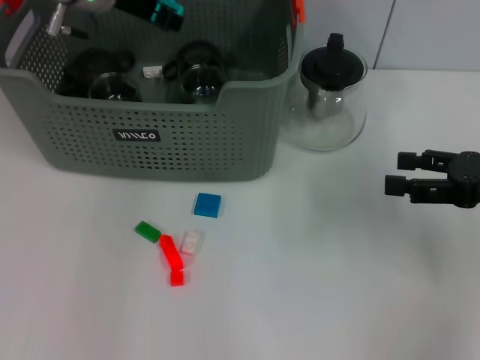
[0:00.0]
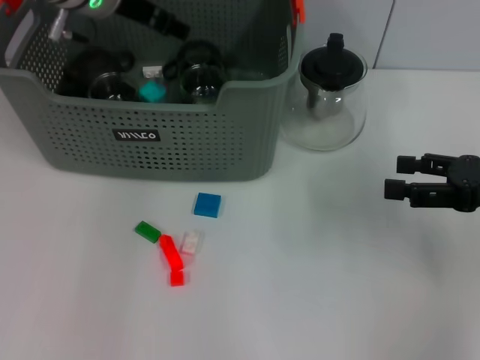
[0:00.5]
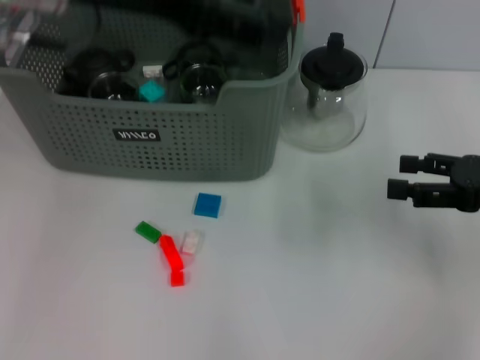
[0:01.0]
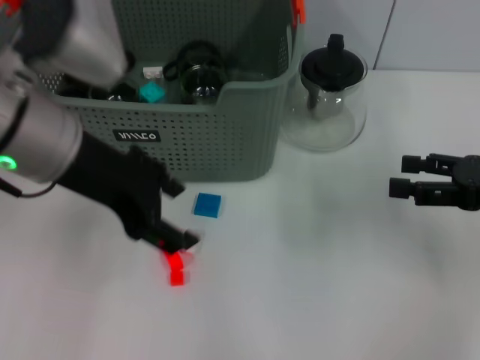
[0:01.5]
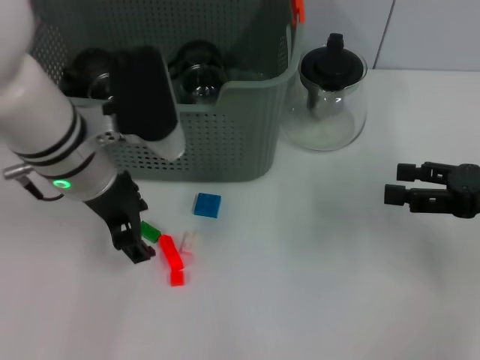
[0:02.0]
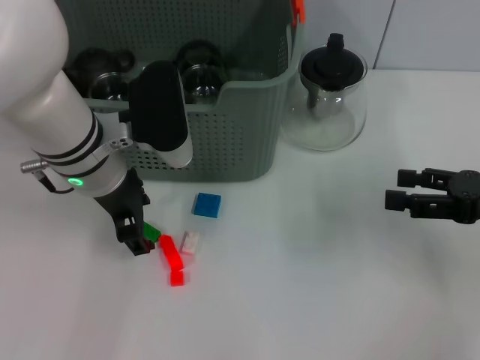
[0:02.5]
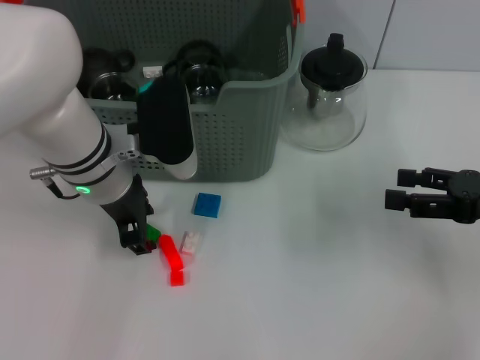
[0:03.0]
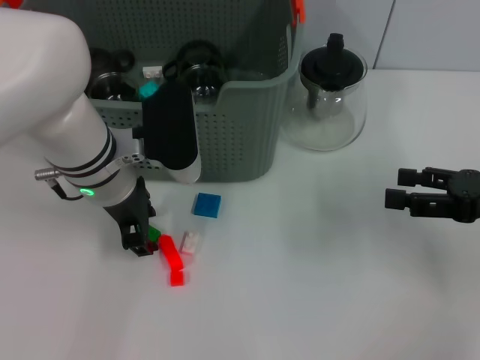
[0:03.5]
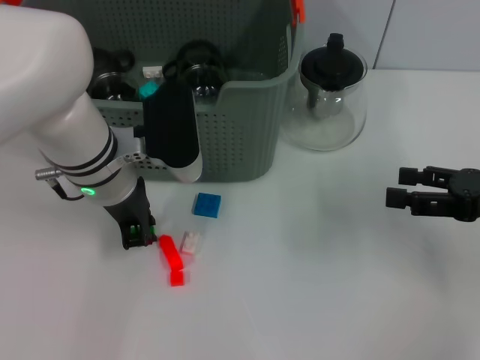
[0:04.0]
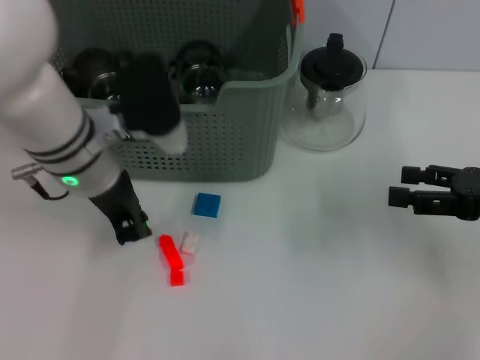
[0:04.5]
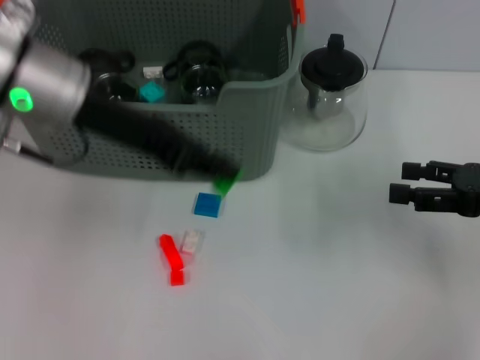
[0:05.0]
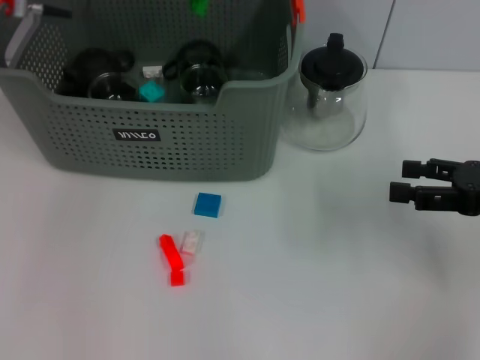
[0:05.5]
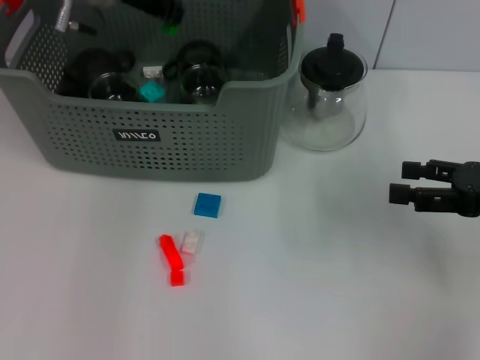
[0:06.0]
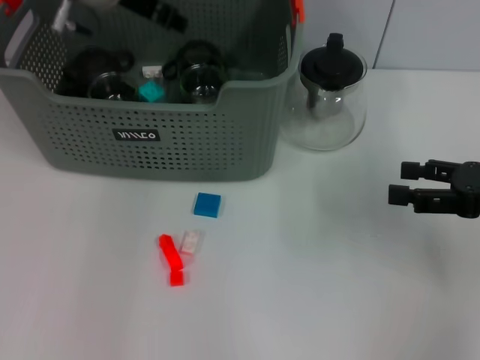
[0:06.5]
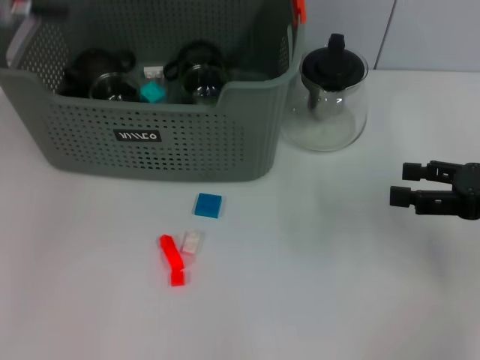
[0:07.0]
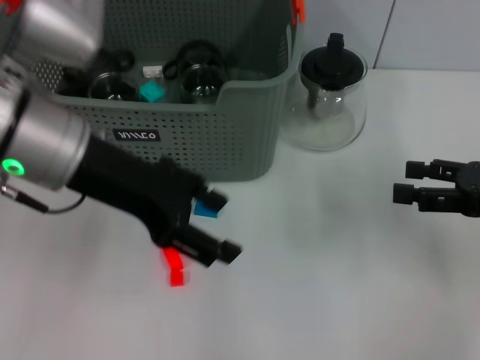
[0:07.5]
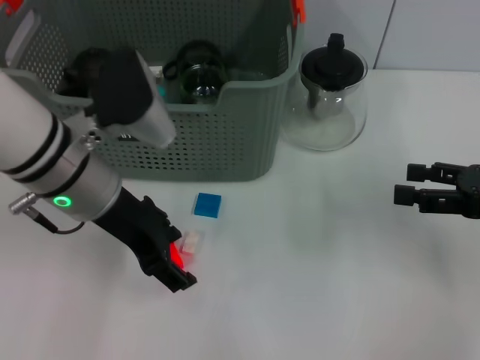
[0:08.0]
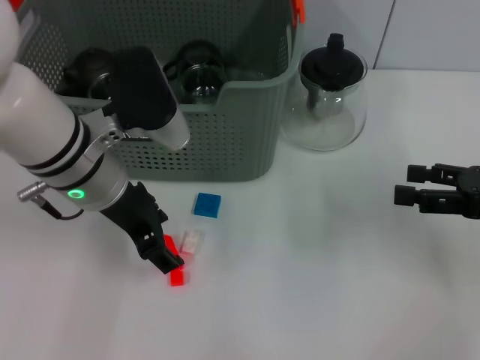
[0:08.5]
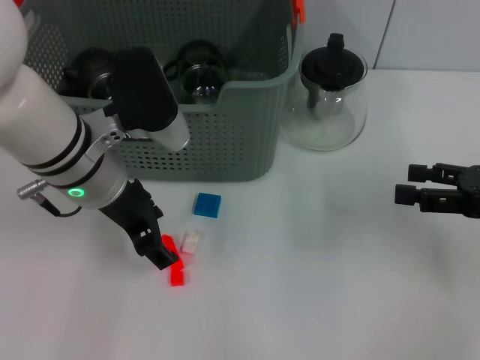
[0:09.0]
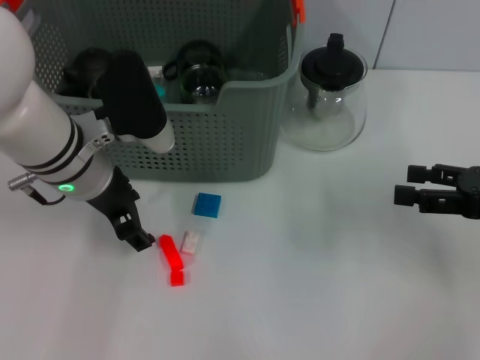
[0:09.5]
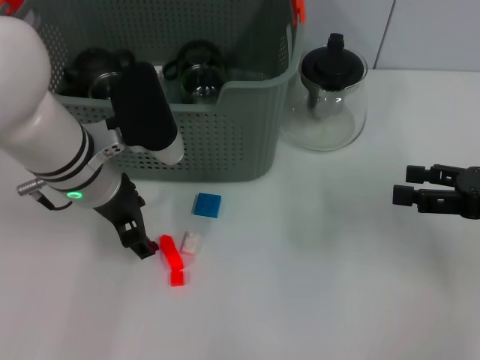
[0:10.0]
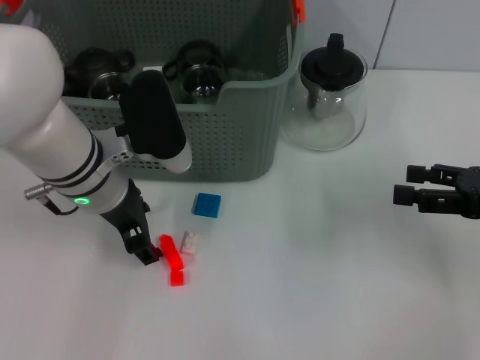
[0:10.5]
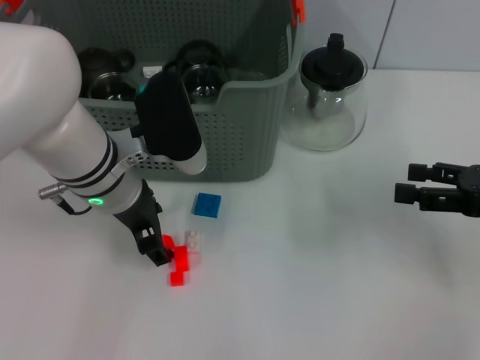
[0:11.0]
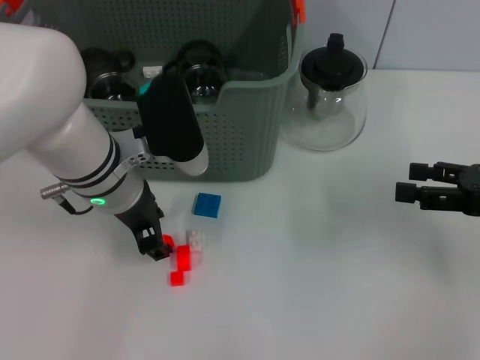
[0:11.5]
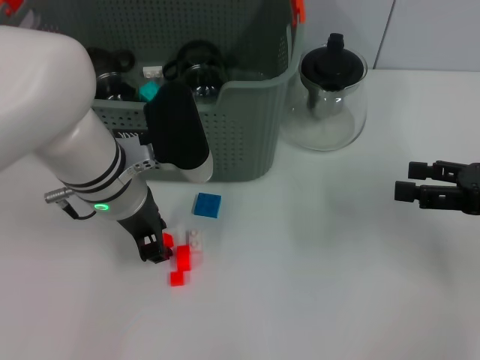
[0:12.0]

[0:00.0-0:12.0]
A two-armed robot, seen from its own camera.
Task of the whole recording: pick up the teacup on the table and place it into the storage bin, pick up the block on the table and place it into the storage bin.
Step, 0:01.0 to 0:04.0: Grasp the green block with left gripper.
Step, 0:04.5 to 0:06.0: Place the green block in the storage box with left gripper.
0:00.0 to 0:02.0: The left gripper heads backward and downward, covering some 15 cm.
0:02.0 to 0:04.0: The left gripper closes up.
0:04.0 to 0:06.0: The left gripper travels forward and upward by roughly 15 cm.
0:06.0 to 0:08.0: The left gripper is displaced backward and downward by approximately 15 cm, and opens its fingers.
0:08.0 to 0:10.0: The grippers make only small movements.
0:10.0 to 0:12.0: The left gripper closes up.

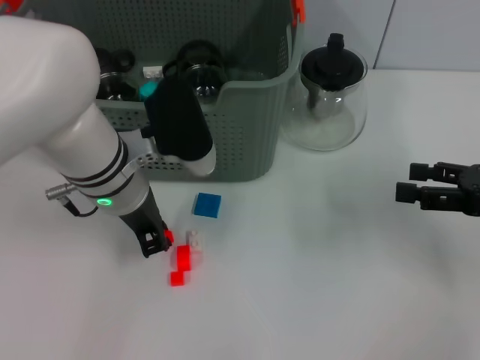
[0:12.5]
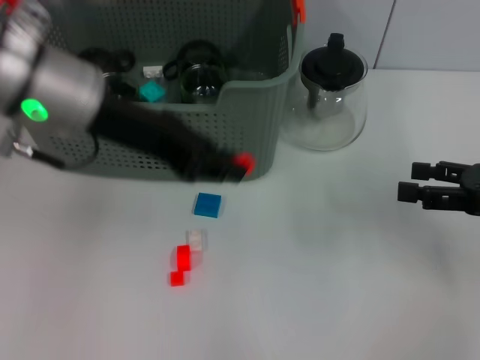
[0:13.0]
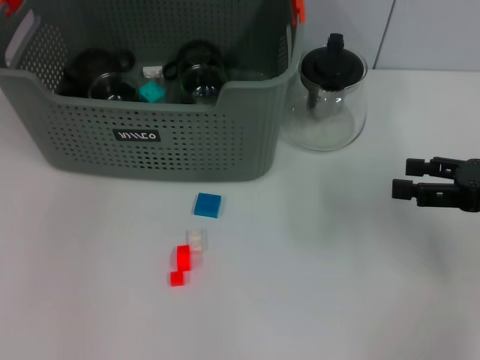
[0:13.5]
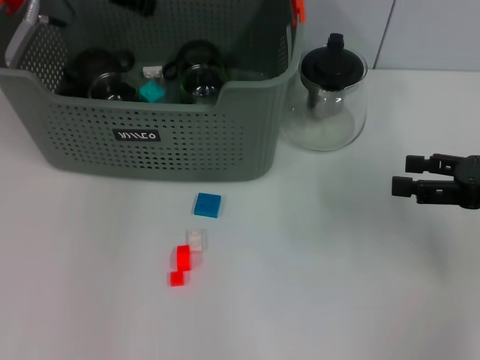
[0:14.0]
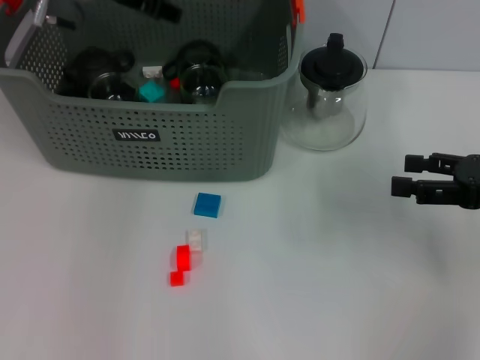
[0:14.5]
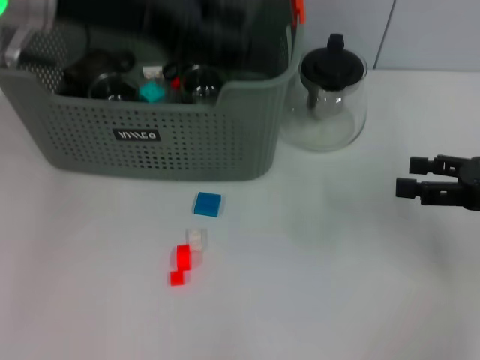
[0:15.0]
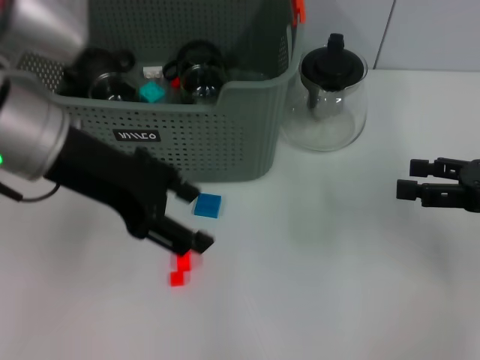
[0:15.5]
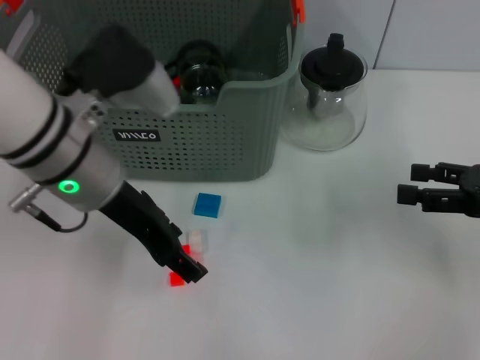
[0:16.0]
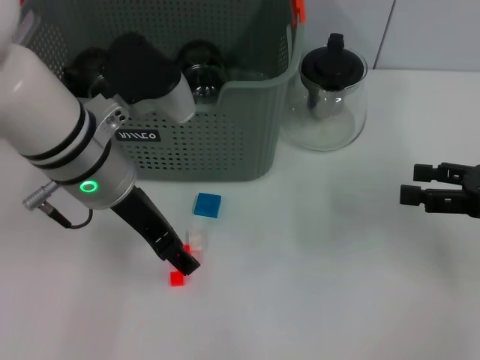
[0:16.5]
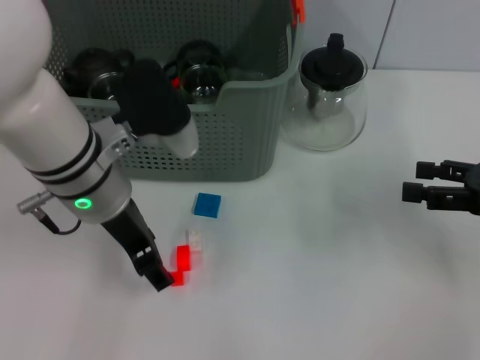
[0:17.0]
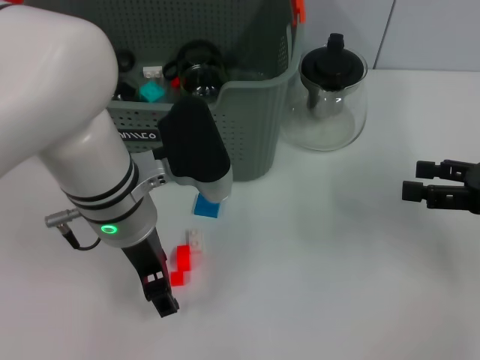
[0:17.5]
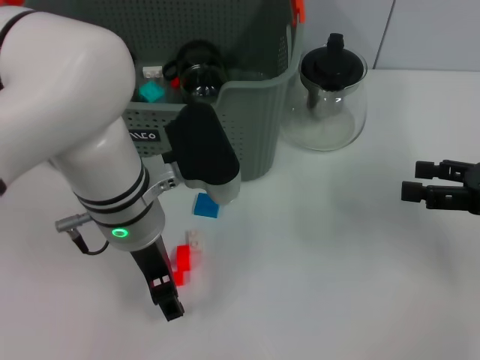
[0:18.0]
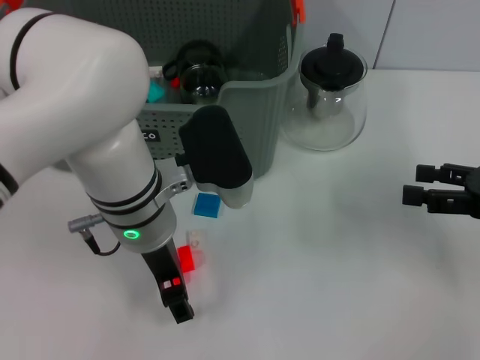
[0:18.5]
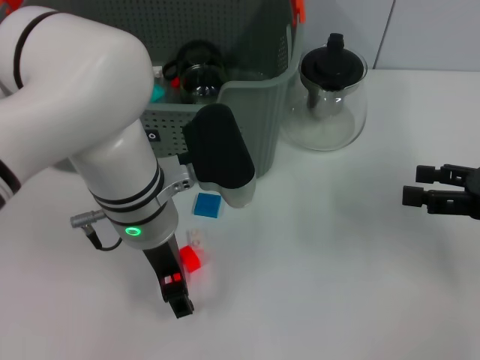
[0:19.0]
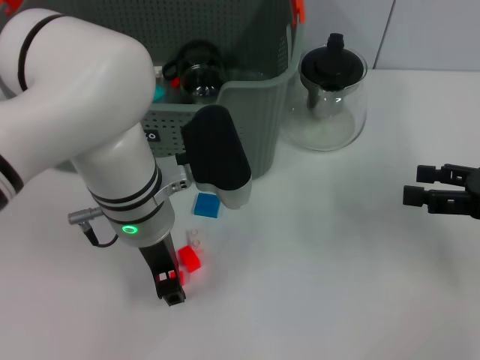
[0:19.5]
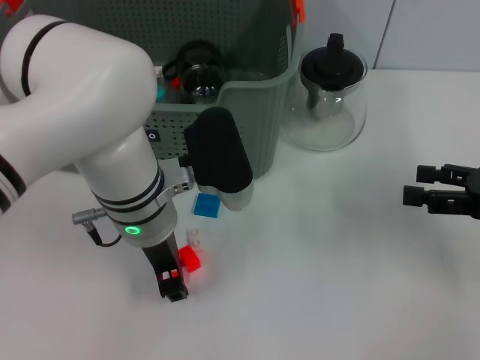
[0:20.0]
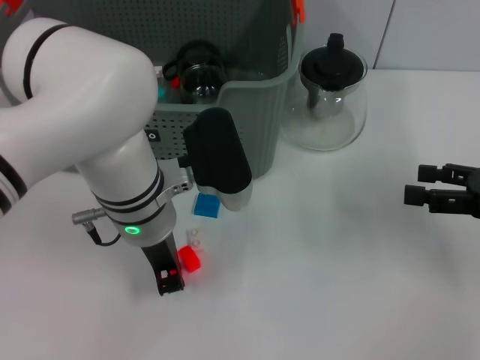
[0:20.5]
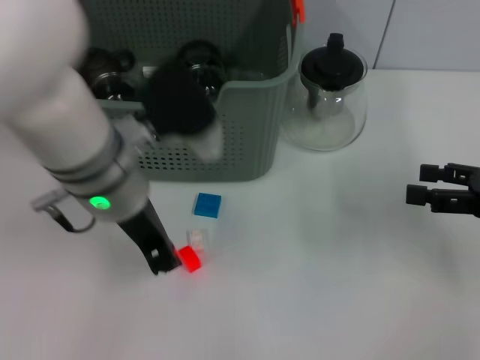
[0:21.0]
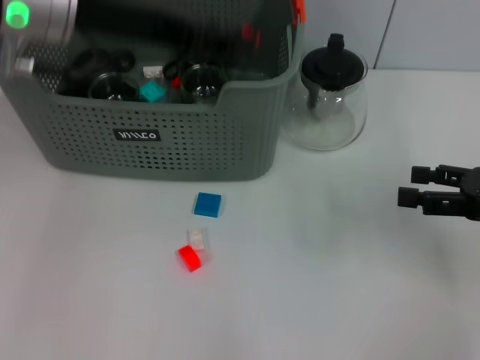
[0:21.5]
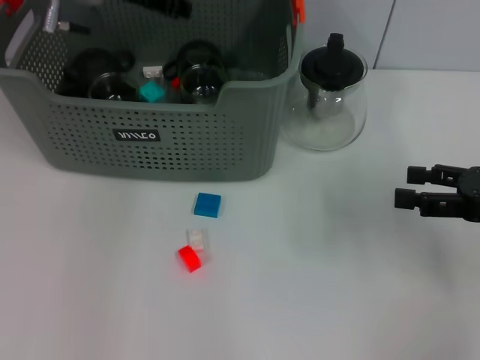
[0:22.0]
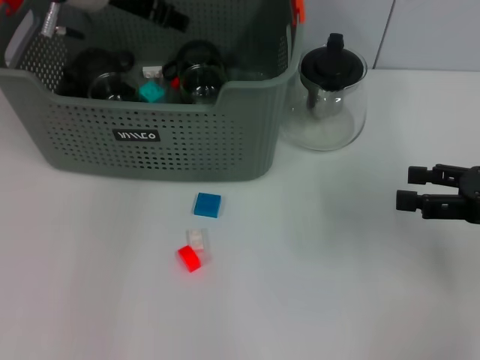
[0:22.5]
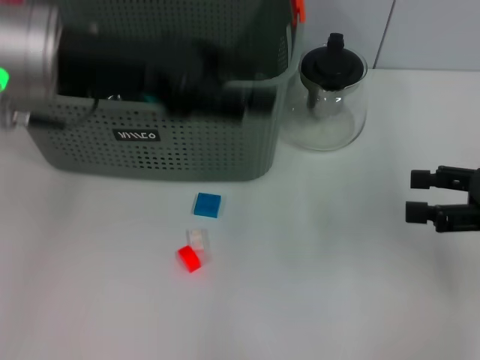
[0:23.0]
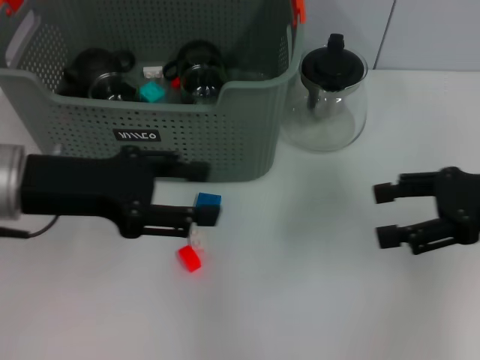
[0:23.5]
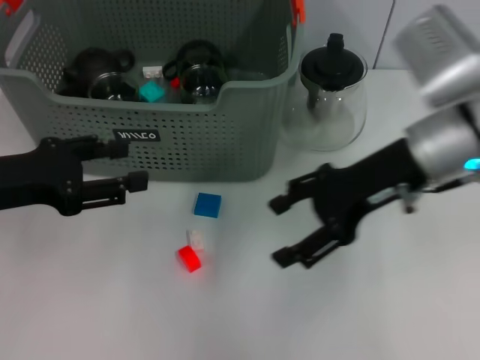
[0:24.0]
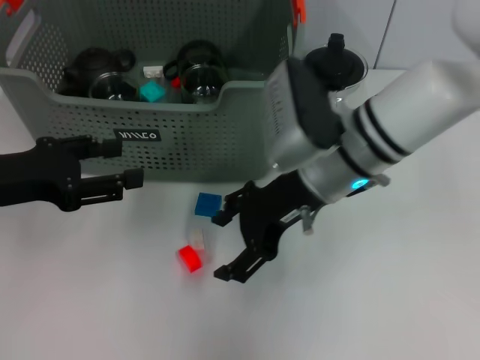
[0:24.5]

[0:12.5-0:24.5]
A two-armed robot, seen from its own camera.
Task of the whole recording: pick up the teacup on the table and place it into the storage bin, pick up the block on the table and place it into the storage bin.
Step, 0:13.0 to 0:14.5: Place the orange block in the storage box with left gripper.
Step, 0:15.0 to 0:20.5: Grasp the orange block with left gripper.
Step, 0:21.0 to 0:22.5: Place the orange block in the storage box with left gripper.
0:12.5 to 0:14.5: The left gripper goes approximately 15 cm forward and upward.
0:14.5 to 0:16.5: The left gripper goes about 15 cm backward and downward.
0:16.5 to 0:18.5: The left gripper changes place by some 5 cm.
0:18.5 to 0:20.5: The left gripper closes its fingers.
0:20.5 to 0:22.5: The left gripper goes approximately 20 cm forward, upward and to the left.
0:22.5 to 0:24.5: The left gripper moves backward, to the left and downward, roughly 25 cm. Meanwhile the right gripper heads to the left, covering about 25 cm.

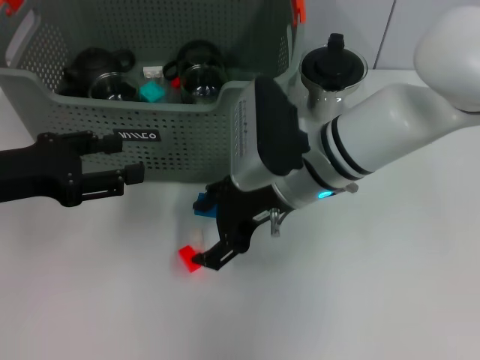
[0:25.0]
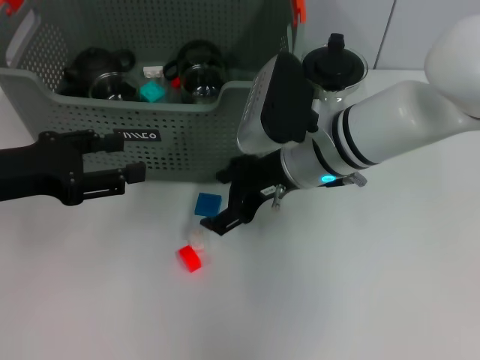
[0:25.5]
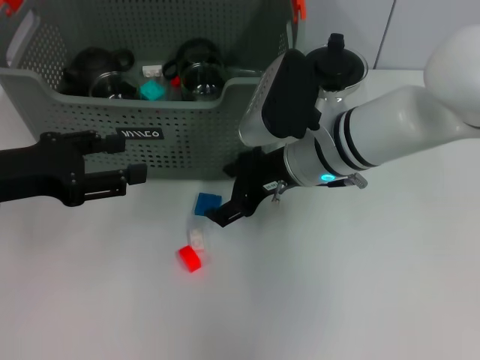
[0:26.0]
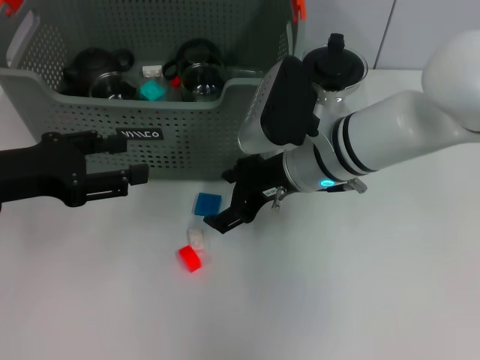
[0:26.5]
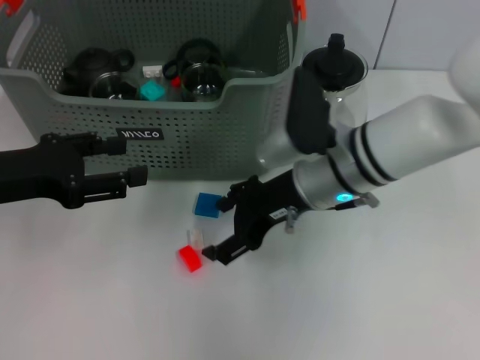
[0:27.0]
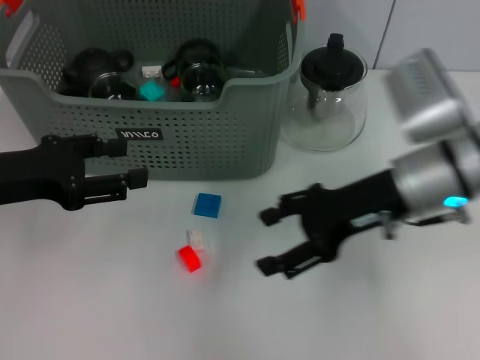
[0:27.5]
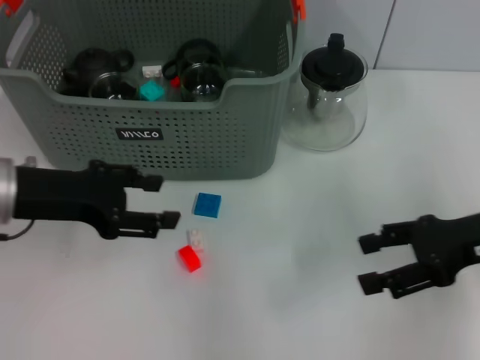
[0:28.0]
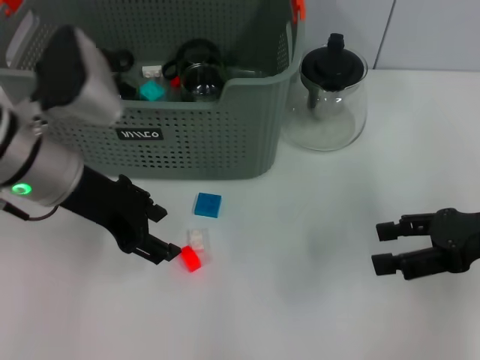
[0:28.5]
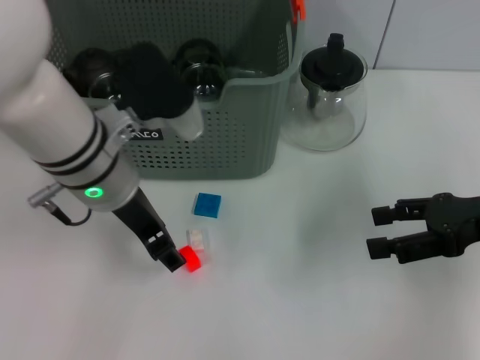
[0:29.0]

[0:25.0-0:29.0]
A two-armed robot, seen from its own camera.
Task of the whole recording: pick up the teacup on the table and place it into the storage bin, pick up the block on the table and place it into the storage bin.
0:25.0 to 0:27.0: The grippers move only a little.
0:27.0 to 0:29.0: The two grippers go roughly 20 cm to the right.
